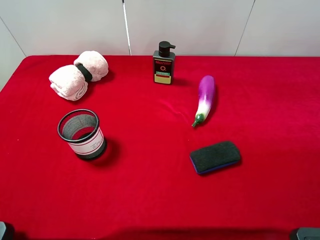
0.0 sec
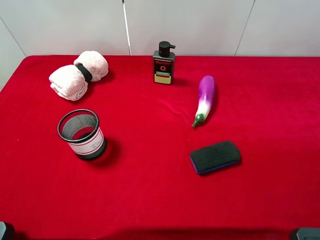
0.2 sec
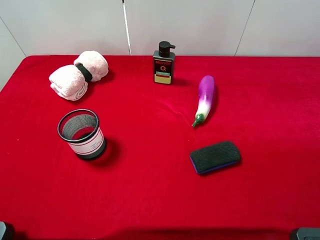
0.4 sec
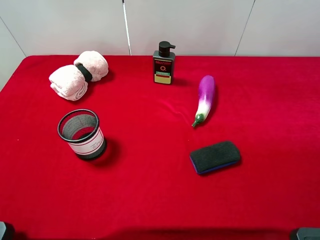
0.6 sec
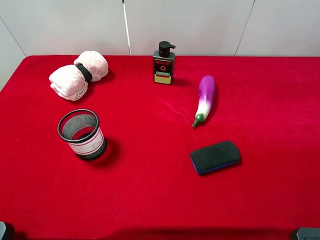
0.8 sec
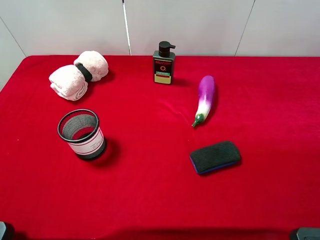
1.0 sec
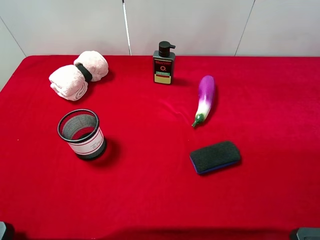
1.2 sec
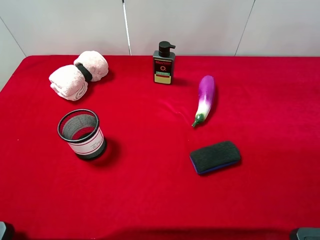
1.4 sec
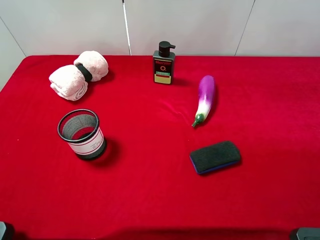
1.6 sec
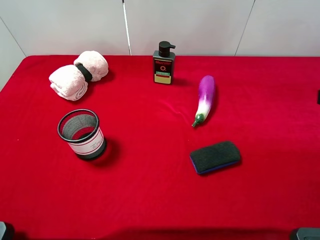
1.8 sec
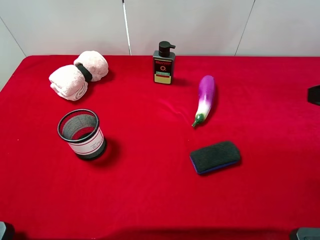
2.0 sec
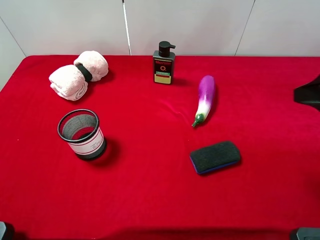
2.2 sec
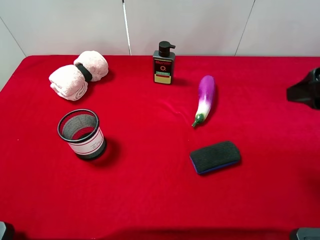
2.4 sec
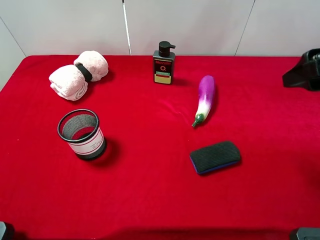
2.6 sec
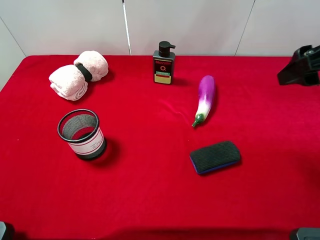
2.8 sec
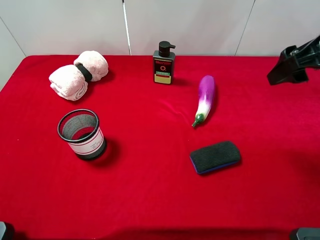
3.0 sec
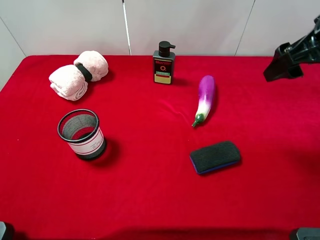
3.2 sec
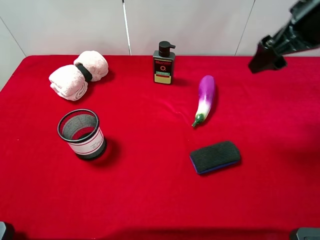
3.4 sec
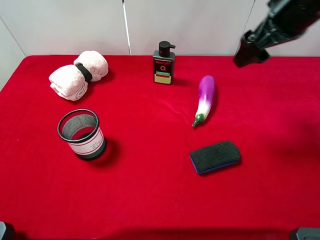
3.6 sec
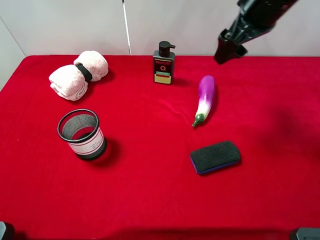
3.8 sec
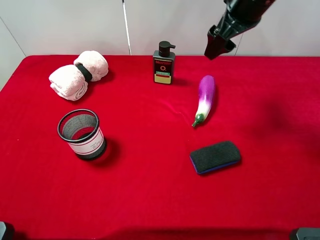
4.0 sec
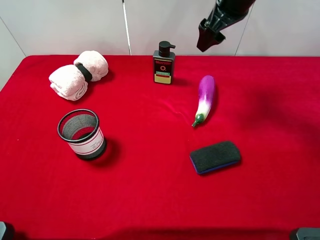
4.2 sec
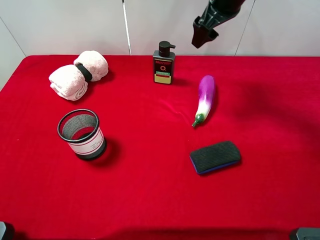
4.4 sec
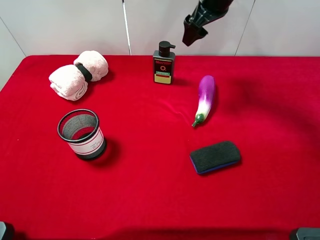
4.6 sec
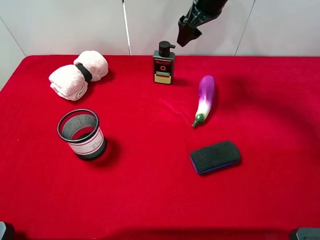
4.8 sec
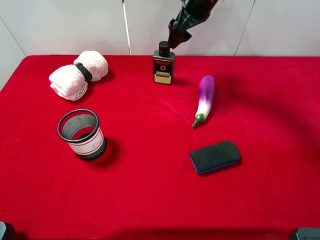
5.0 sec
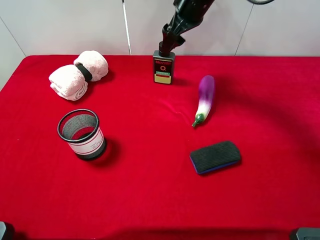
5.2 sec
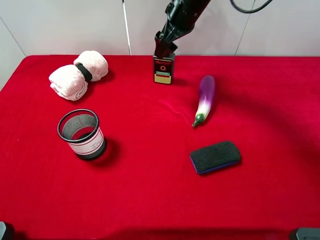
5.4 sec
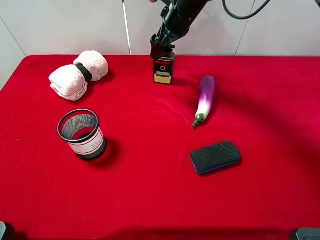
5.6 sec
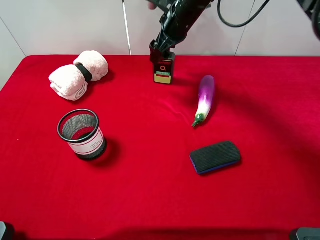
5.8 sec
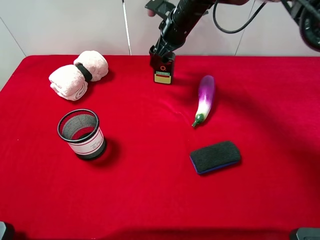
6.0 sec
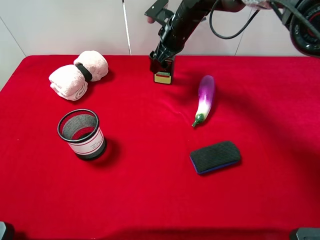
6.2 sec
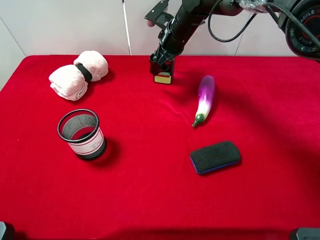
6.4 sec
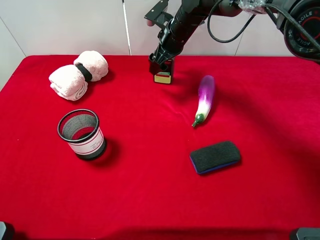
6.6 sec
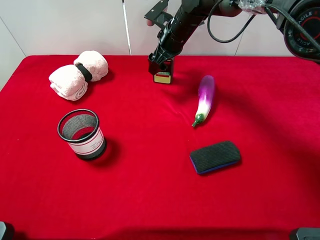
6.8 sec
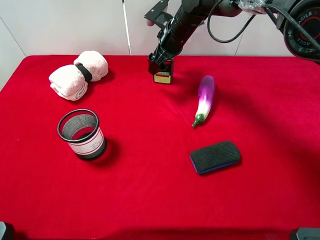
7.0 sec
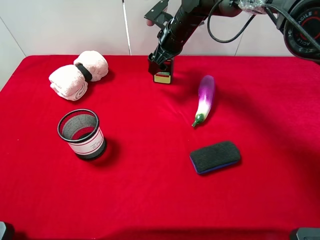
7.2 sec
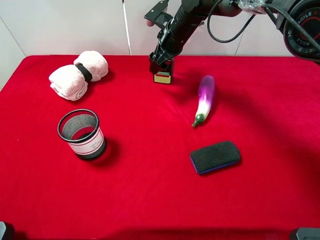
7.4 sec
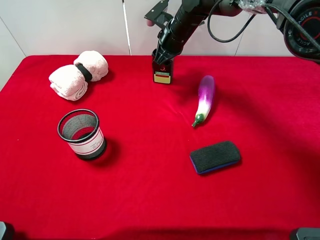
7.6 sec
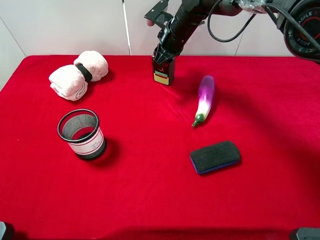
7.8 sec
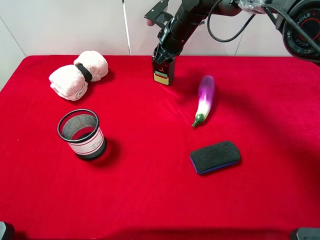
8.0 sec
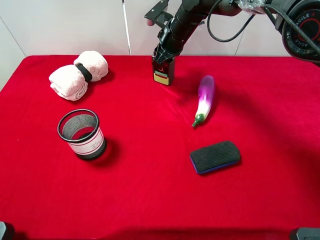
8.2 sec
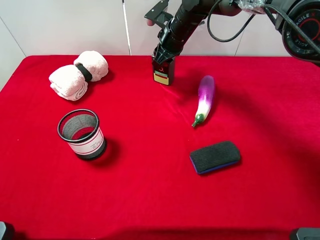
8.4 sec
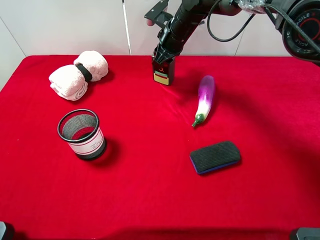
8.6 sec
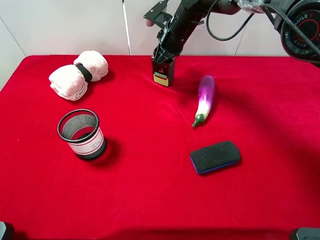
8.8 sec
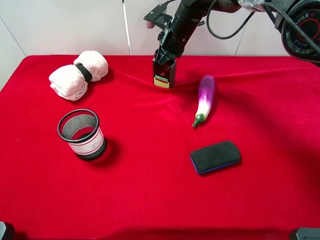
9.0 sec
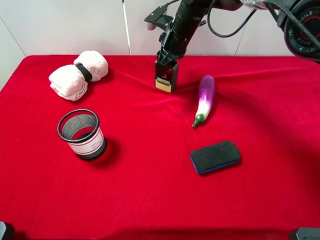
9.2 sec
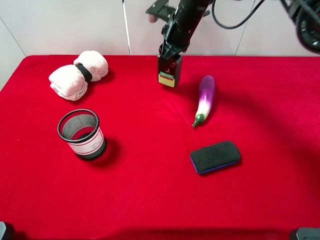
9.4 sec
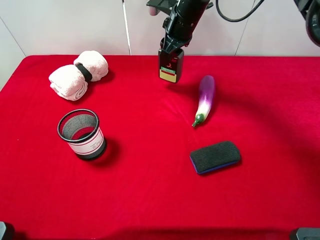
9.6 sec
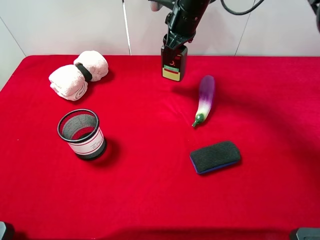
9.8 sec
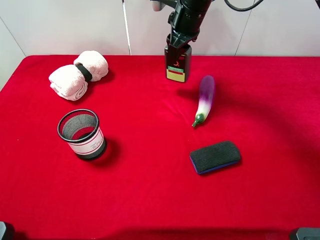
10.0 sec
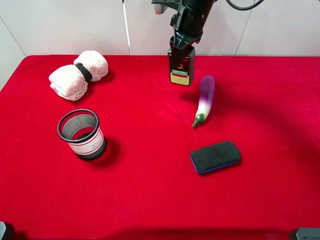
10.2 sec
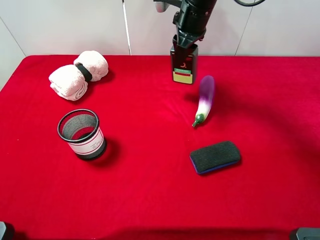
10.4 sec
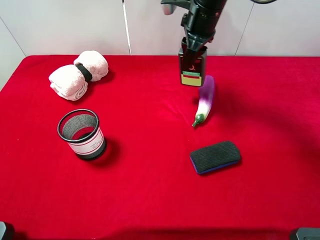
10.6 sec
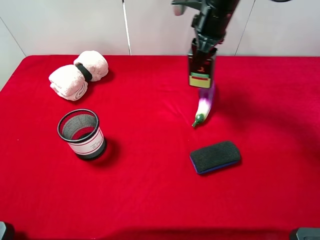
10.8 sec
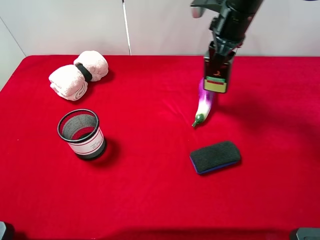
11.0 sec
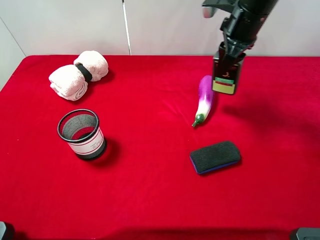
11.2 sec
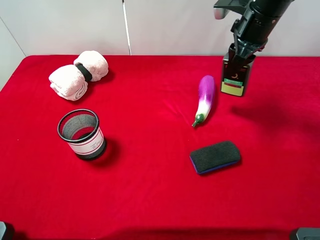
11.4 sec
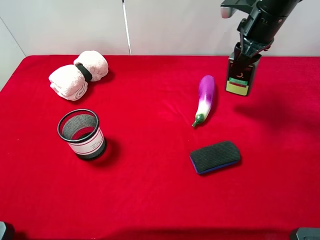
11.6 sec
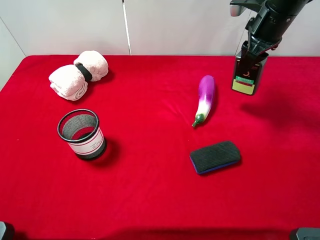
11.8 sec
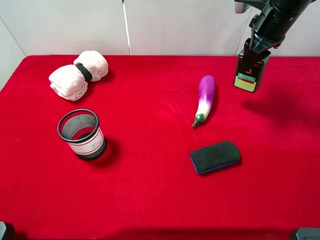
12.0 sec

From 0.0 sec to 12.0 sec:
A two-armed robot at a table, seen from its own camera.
Task of the whole recording: the gripper move the object.
Step, from 0.0 sec to 7.8 sec: Grasp the hard facial cleanser with the right gripper.
From 1.6 sec to 3.0 sec: The right gripper shifts about 15 cm forward.
From 3.0 sec to 4.4 sec: The right gripper travels forward and to the left by about 20 cm.
From 4.4 sec to 6.0 sec: The right gripper is displaced downward and to the left by roughly 15 cm.
From 6.0 sec to 7.6 sec: The right gripper closes.
From 7.6 sec to 9.0 sec: There are only small adjustments of the grippers.
From 9.0 sec to 10.4 sec: The right gripper moves upward, roughly 10 cm.
From 10.4 sec to 12.0 sec: The right gripper travels to the right by approximately 15 cm.

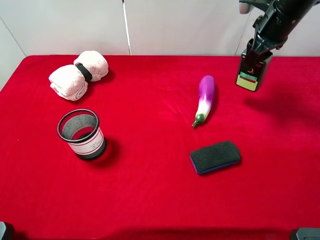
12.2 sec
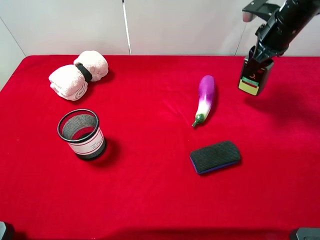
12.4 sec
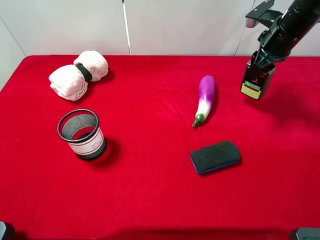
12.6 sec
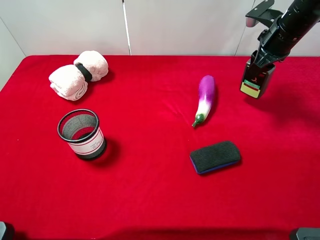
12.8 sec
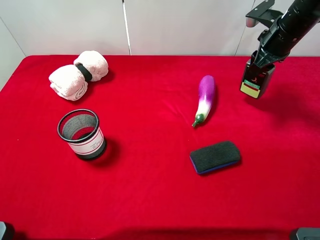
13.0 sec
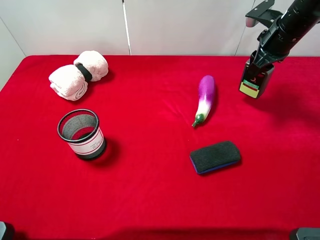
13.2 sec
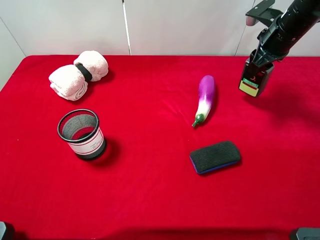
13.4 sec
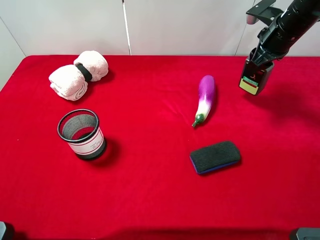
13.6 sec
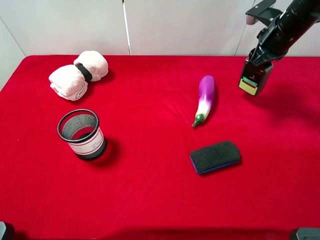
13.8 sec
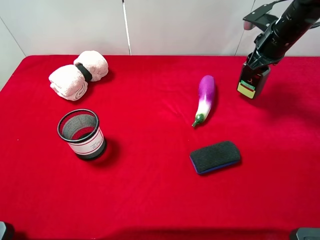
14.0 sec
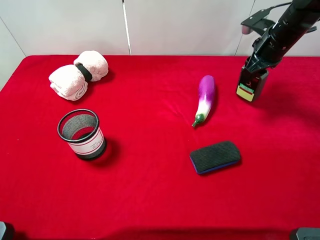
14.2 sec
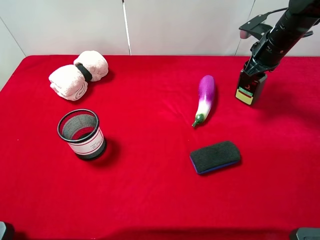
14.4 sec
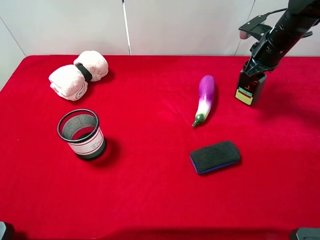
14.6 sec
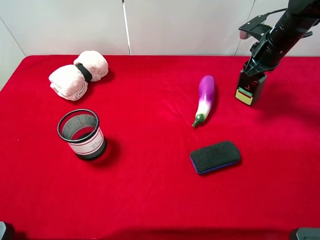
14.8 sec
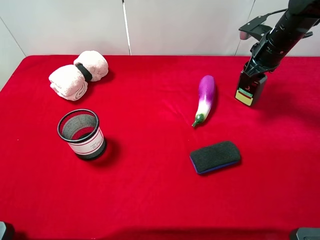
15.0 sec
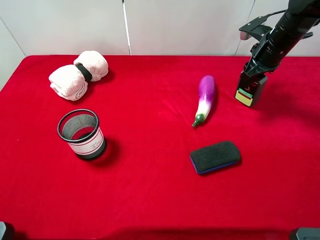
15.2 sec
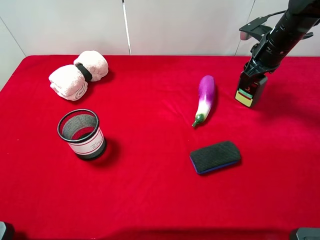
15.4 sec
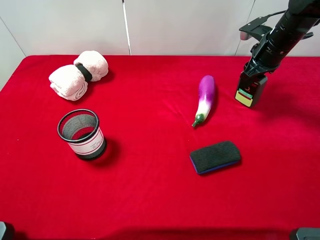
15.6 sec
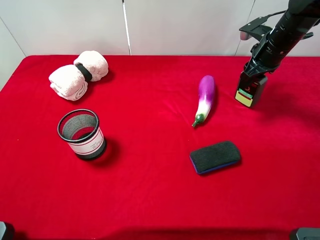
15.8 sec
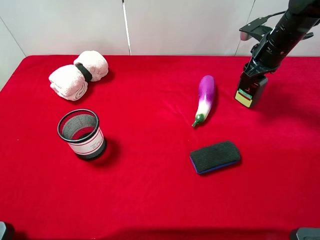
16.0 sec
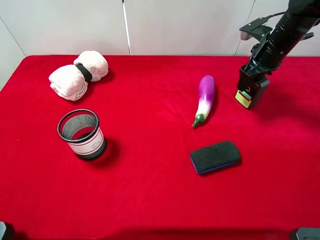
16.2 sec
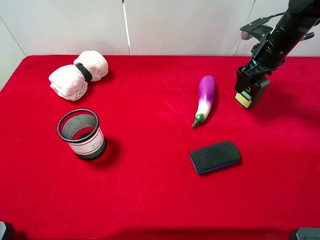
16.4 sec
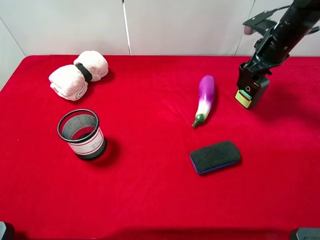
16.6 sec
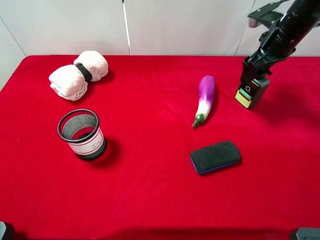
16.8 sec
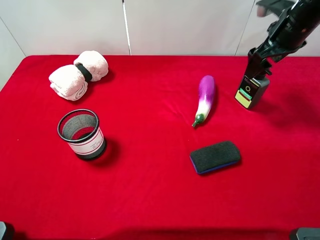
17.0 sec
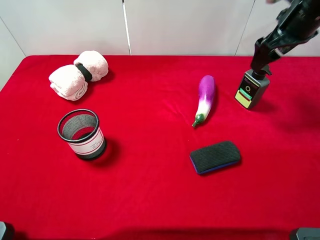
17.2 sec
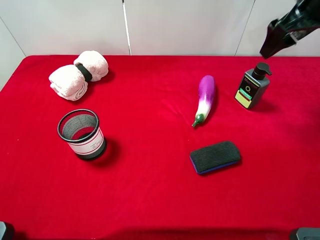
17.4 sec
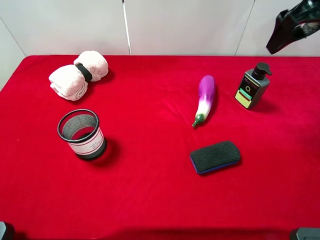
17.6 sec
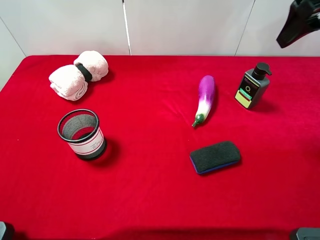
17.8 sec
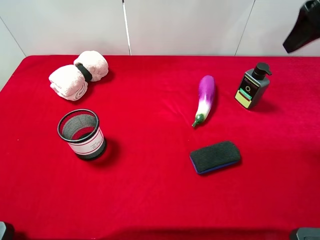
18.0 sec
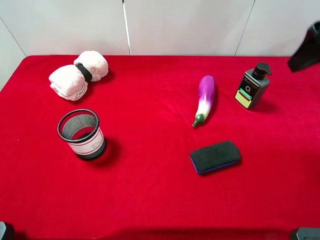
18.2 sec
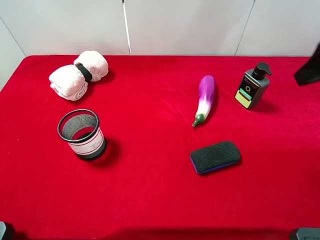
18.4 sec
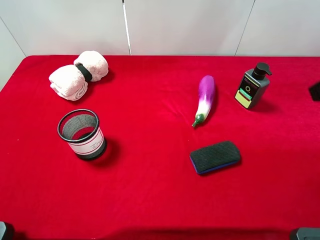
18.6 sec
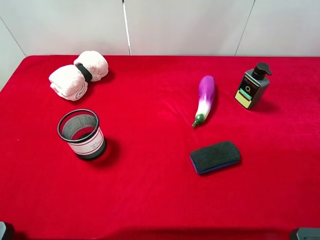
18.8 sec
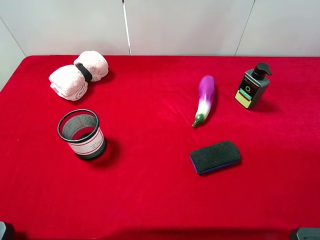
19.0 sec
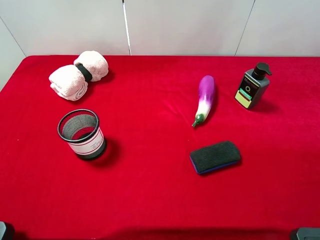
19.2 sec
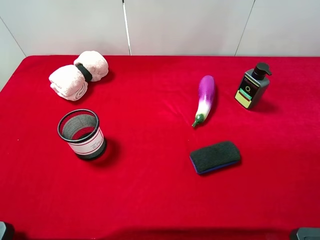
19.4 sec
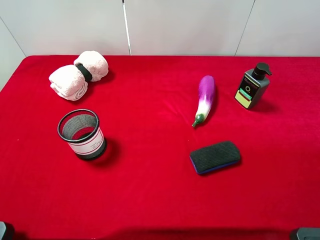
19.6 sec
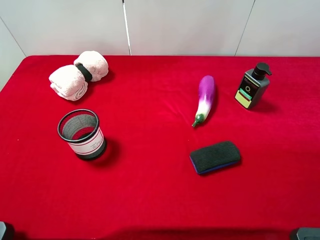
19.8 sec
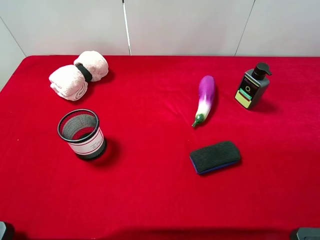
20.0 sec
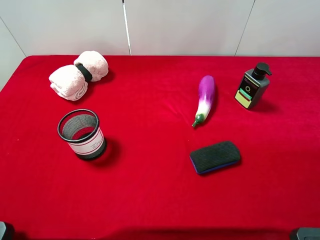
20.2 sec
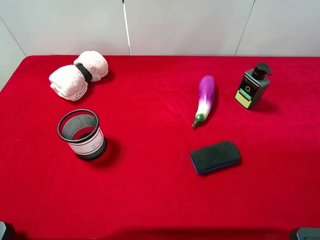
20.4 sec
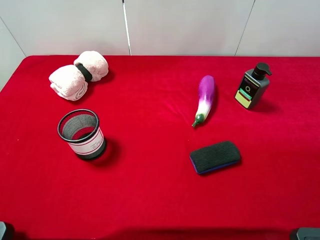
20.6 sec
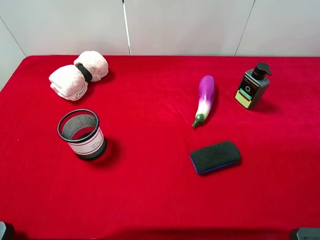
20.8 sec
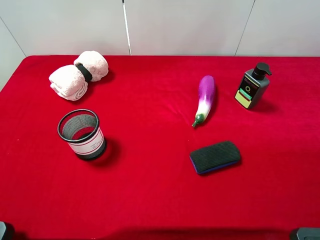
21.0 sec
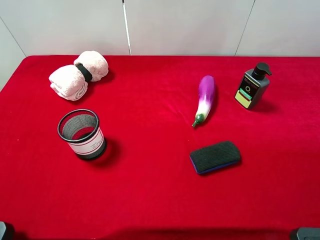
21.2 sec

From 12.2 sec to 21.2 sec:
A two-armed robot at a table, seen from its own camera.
Task of the whole recording: the gripper move the object.
Step, from 12.2 sec to 17.2 sec: Place the hard facial cleanser on the table with the right gripper.
From 12.2 sec to 13.8 sec: The grippers move only a little.
From 13.8 sec to 15.2 sec: There are only small adjustments of the grippers.
From 15.2 sec to 16.6 sec: The right gripper opens its fingers.
From 16.6 sec to 18.2 sec: The right gripper is displaced backward and upward by approximately 25 cm.
From 18.2 sec to 19.8 sec: The right gripper travels backward by roughly 20 cm.
From 19.8 sec to 21.2 sec: Neither gripper changes place.
